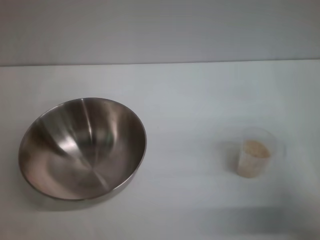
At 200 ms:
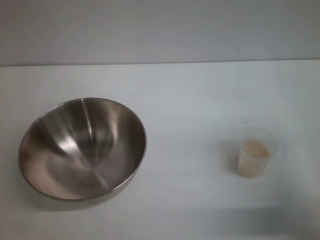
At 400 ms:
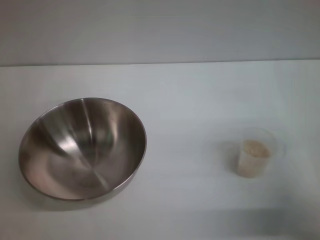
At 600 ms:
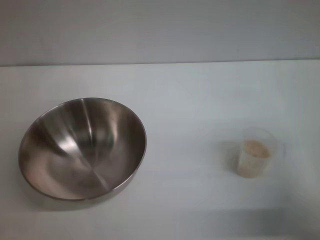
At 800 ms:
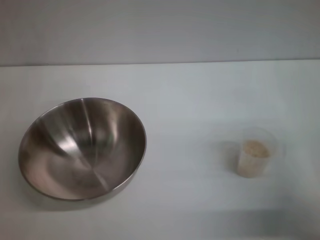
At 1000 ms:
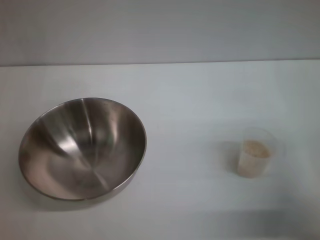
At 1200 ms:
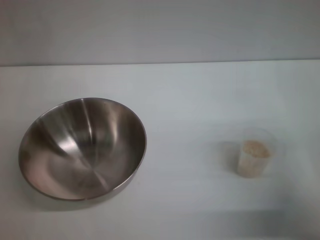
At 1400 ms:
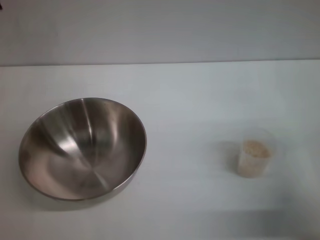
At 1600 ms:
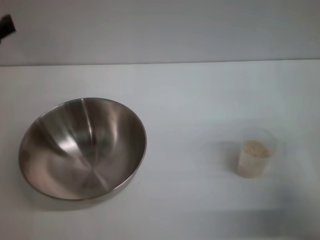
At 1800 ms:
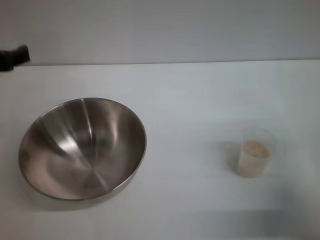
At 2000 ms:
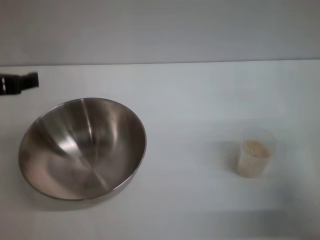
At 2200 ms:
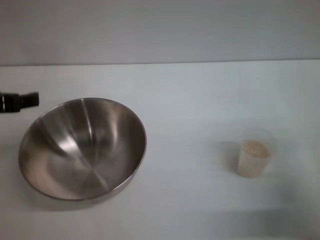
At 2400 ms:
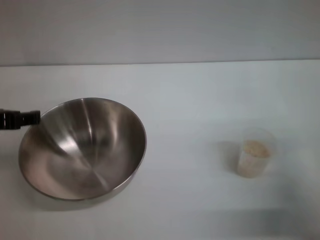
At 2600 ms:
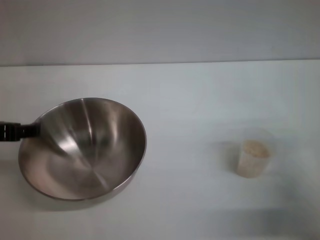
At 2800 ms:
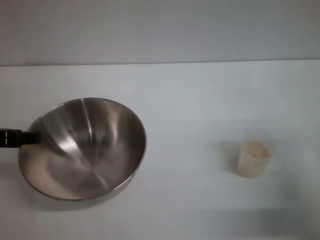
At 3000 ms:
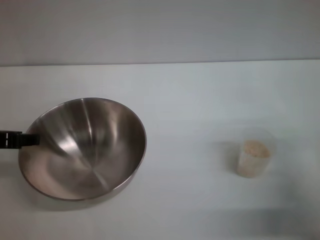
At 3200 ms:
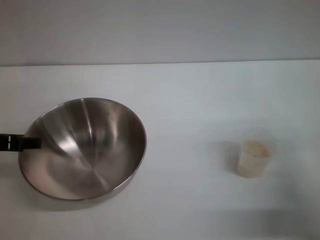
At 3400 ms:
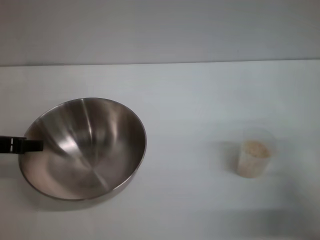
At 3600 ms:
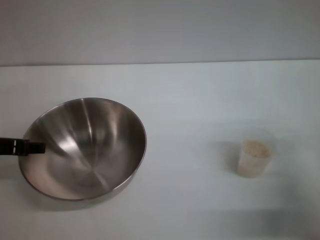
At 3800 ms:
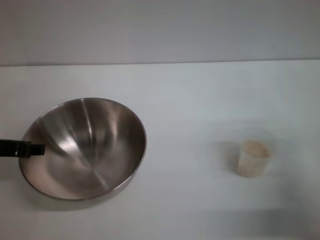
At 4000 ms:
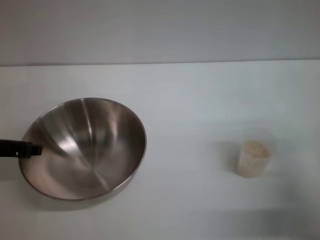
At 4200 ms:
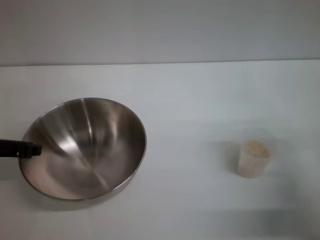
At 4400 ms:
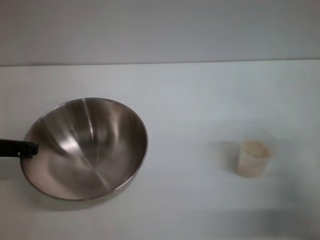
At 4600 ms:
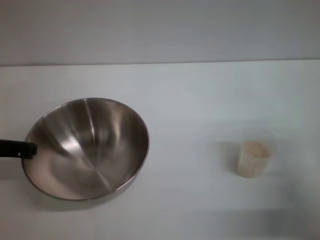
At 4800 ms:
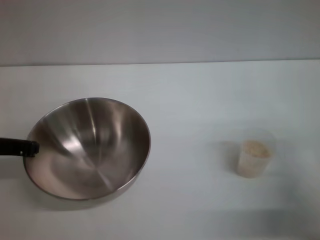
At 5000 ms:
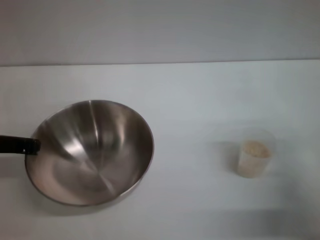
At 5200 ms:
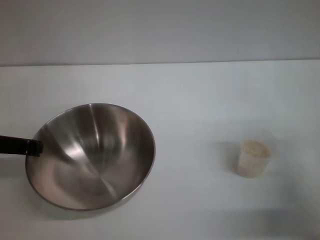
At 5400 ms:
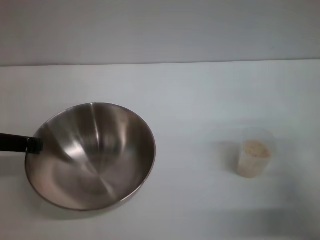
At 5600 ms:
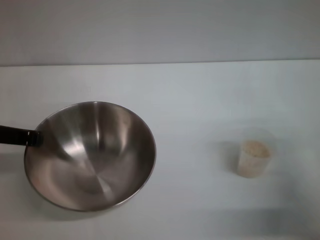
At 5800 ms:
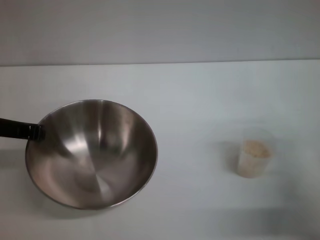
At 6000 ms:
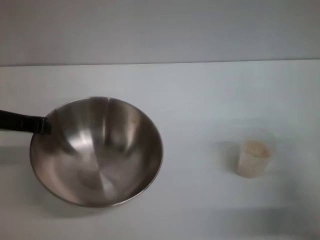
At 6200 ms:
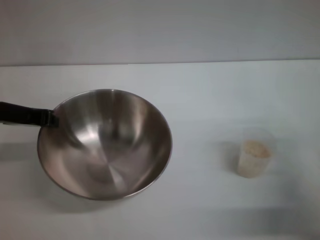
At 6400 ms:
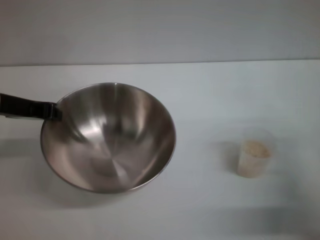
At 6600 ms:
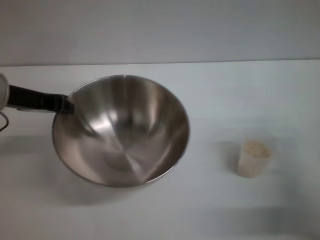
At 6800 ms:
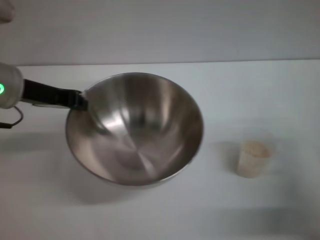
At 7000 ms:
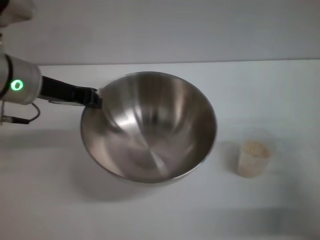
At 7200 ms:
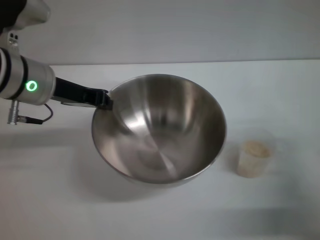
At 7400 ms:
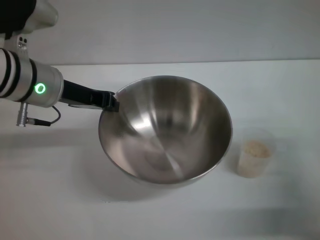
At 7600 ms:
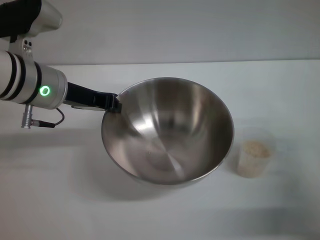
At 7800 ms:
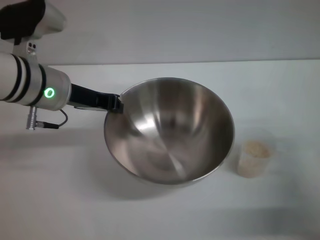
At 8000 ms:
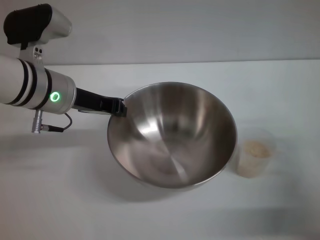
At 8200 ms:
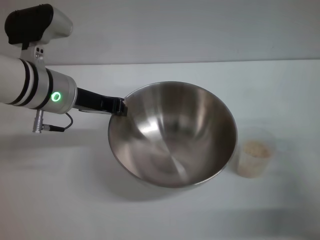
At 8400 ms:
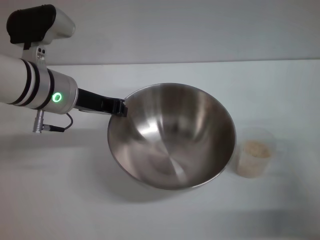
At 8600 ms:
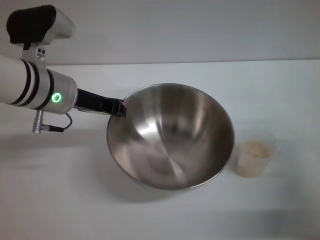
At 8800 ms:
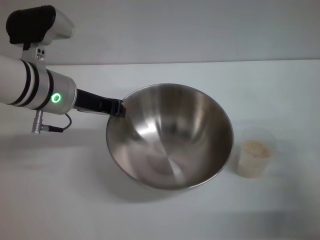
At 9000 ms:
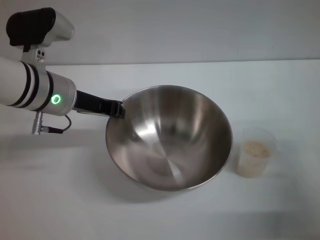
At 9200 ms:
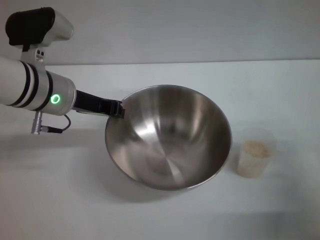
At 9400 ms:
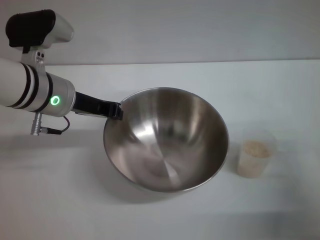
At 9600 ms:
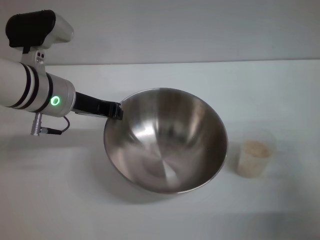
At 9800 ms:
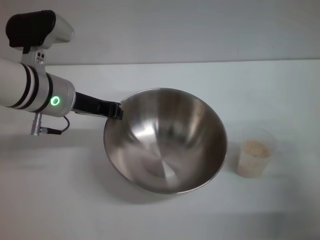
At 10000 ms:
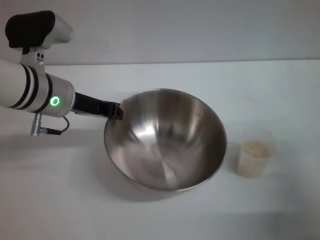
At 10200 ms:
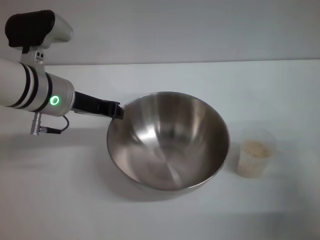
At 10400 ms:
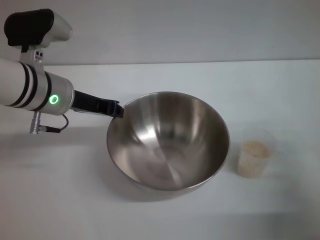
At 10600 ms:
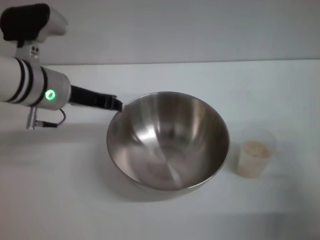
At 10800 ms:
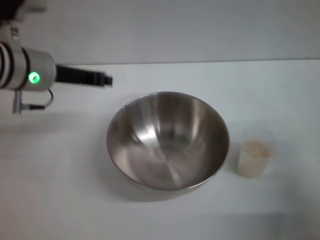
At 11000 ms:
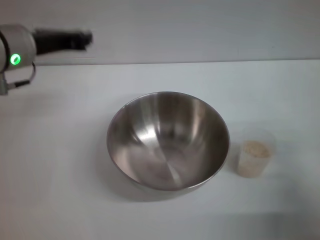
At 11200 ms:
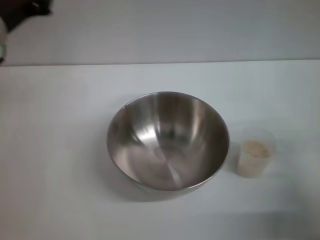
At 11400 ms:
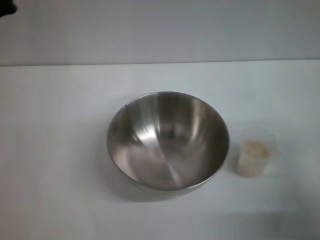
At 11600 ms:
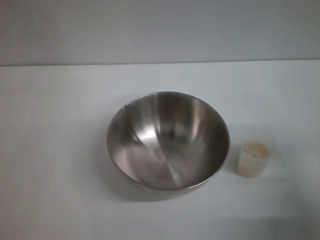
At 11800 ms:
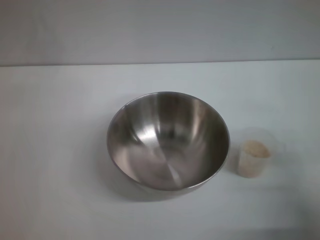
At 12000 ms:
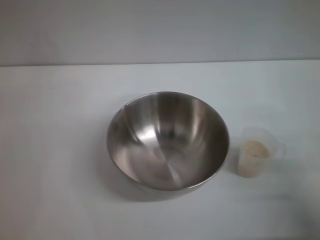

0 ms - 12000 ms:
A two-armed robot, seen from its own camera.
Task of the whole recording: Place the bowl in the middle of the table with one hand and pour the rice from the grain cup into it with the other hand.
Step, 0 ms - 7000 ms: Pick up the bowl with the left gripper.
Step, 7200 ms - 11000 ms: Place the bowl in the center of view with the left gripper.
1600 ms - 3000 ms: The left gripper changes place by about 5 cm.
3000 ms - 4400 ms: The left gripper closes its fingers.
4400 ms - 6000 ms: The left gripper closes.
6000 ms - 7600 ms: The left gripper is displaced to the right by approximately 10 cm.
7600 ms - 9000 ms: There are only small adjustments of the grippers.
9000 ms - 10400 ms: Both grippers stay put.
10400 ms - 12000 ms: The left gripper goes some 15 cm to the left, backward and downward.

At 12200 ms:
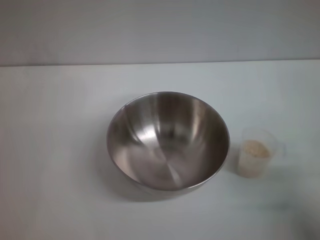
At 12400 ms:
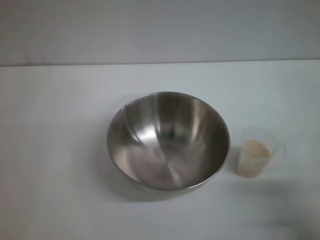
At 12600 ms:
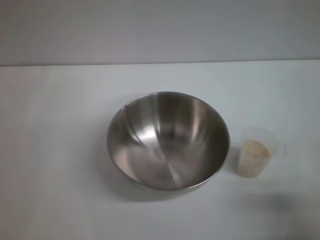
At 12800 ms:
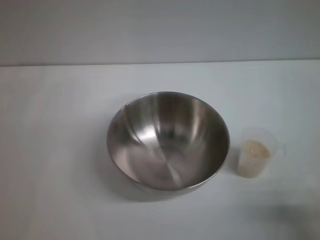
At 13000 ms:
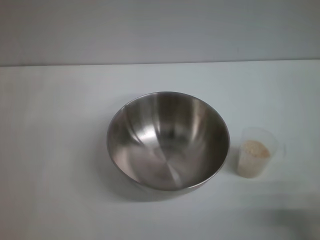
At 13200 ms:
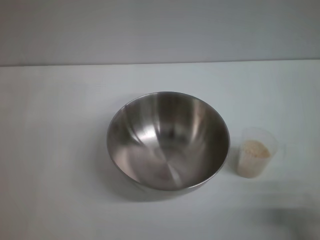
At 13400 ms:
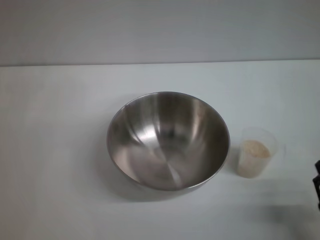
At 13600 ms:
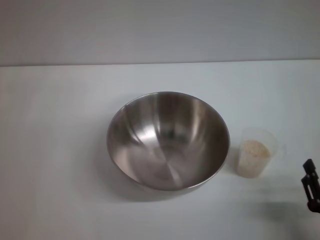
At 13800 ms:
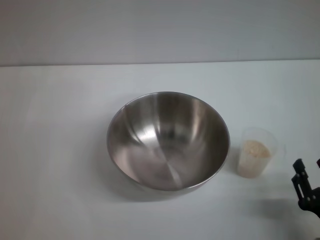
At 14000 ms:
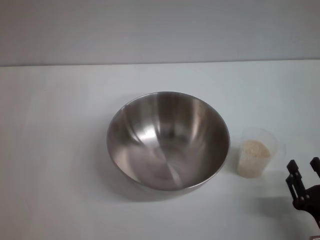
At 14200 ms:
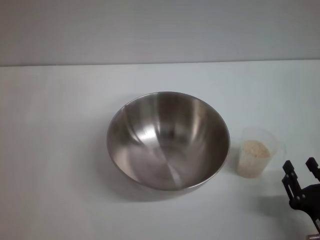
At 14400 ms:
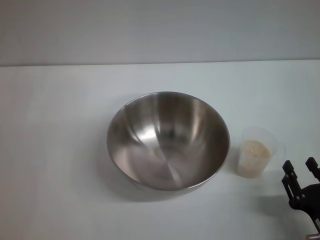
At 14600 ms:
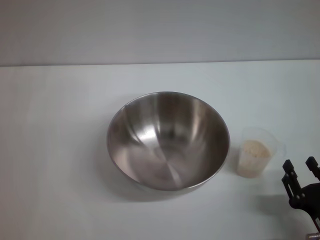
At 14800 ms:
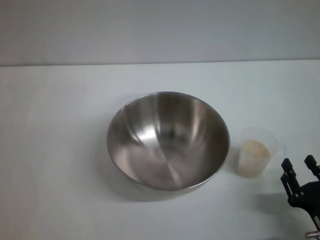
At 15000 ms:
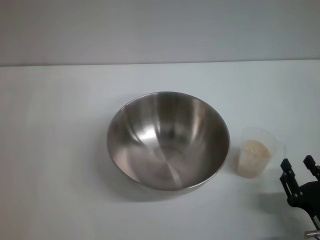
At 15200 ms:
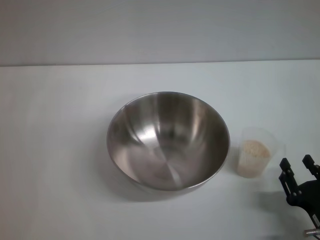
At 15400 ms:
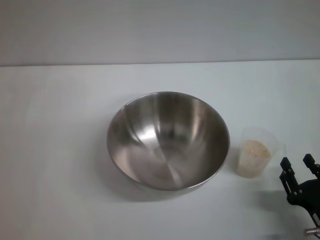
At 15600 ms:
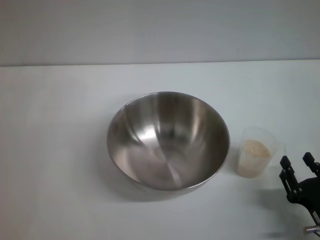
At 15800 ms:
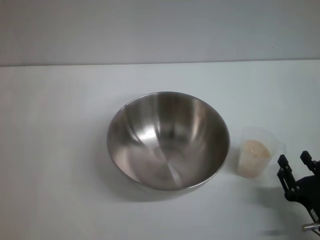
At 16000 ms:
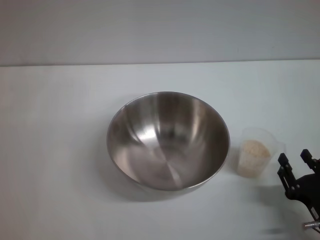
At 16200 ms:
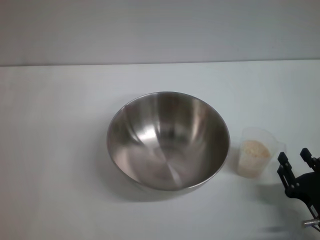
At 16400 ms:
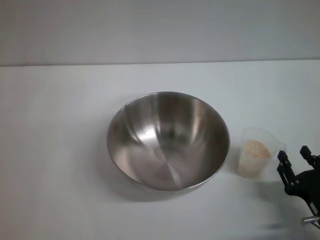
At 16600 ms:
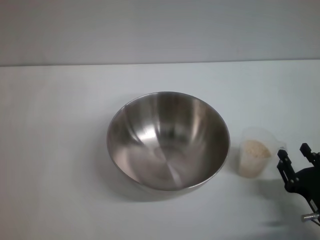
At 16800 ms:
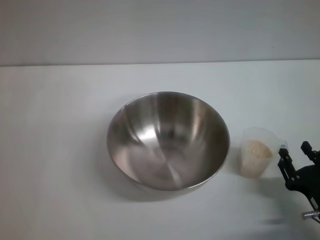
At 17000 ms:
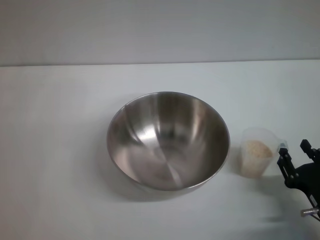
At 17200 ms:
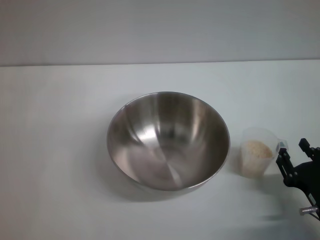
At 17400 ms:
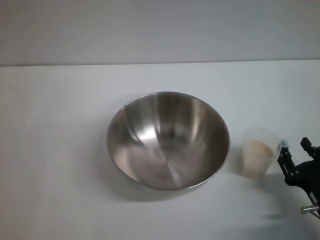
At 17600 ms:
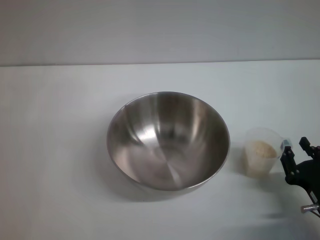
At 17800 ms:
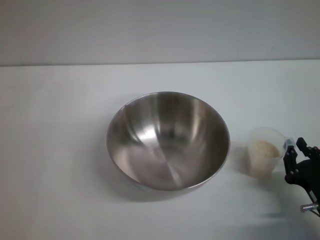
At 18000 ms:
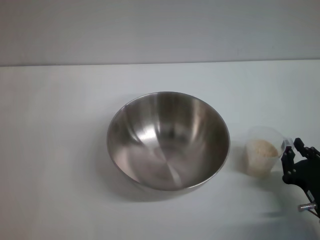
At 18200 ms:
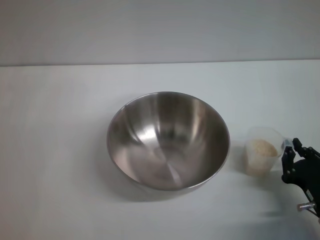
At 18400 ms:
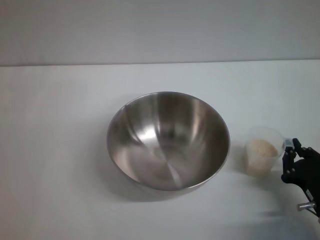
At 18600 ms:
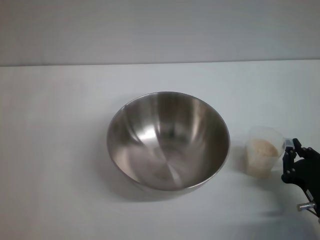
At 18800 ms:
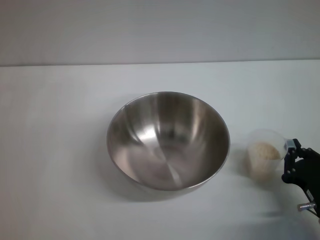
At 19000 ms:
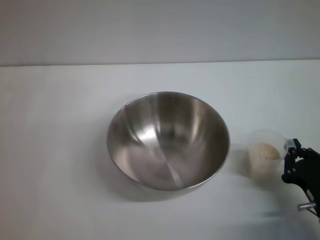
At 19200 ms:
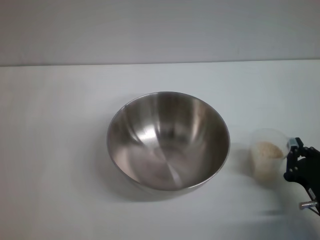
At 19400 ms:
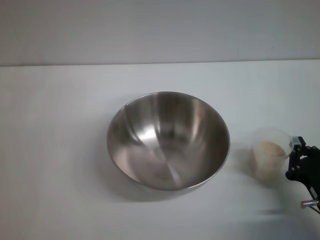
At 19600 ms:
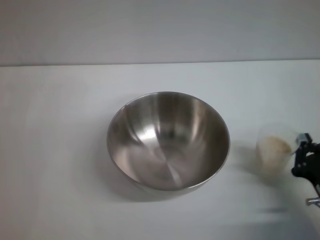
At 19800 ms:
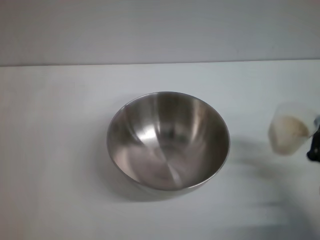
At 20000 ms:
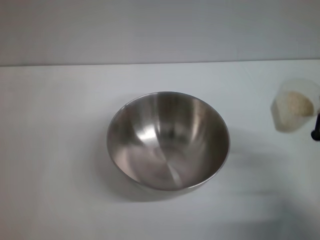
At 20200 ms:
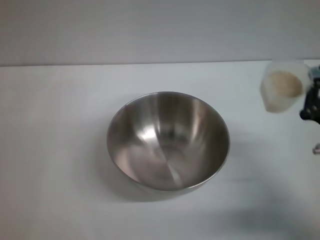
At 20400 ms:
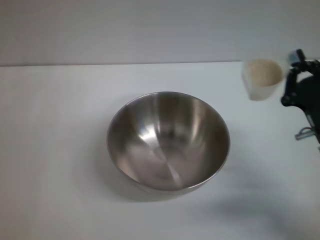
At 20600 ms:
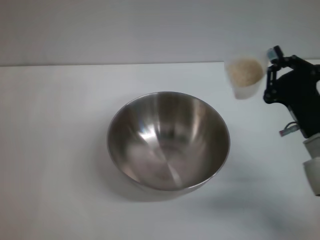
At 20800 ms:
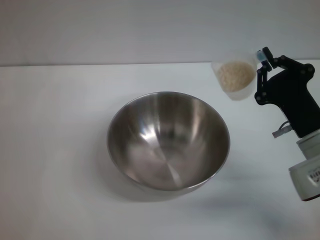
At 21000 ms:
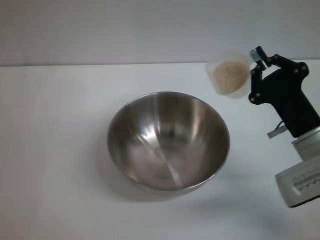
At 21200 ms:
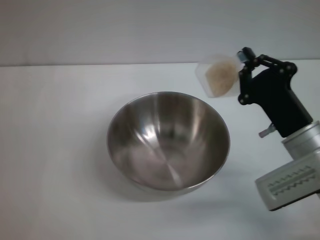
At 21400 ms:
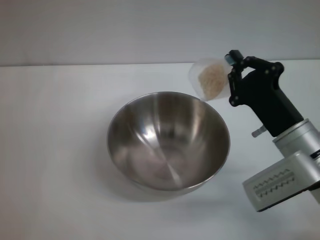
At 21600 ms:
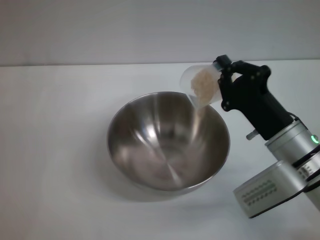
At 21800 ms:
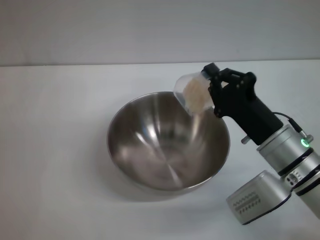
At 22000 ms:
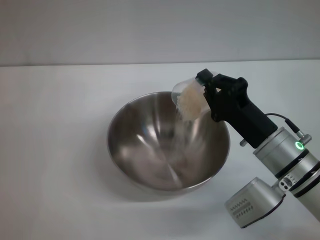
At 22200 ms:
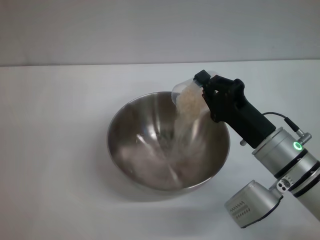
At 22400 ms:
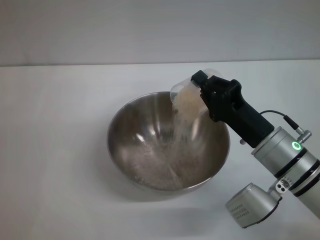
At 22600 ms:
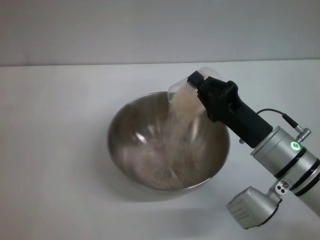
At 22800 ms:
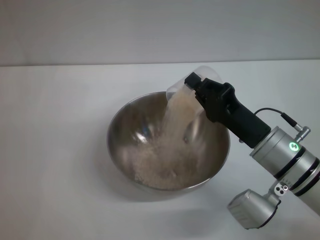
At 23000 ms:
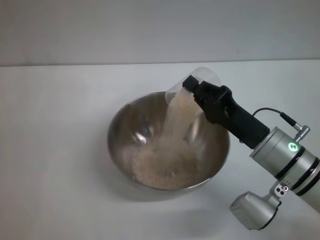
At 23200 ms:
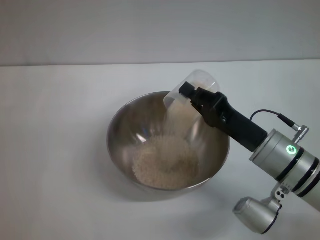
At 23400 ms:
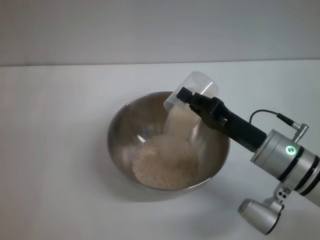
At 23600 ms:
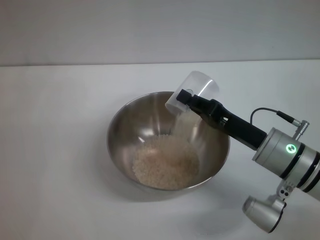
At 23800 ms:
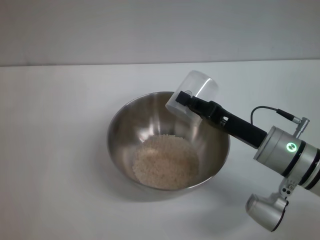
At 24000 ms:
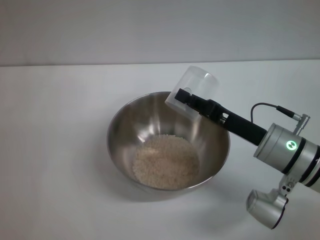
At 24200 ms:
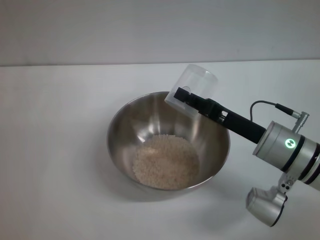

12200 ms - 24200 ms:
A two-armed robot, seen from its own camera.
Task of the whole recording: Place the bowl in the middle of the table with one hand and pour the rice from the grain cup into it with the other hand.
Step, 12200 ms - 20200 ms: Pick up the cup with rice in it with the right gripper.
12200 ms - 13800 ms: The right gripper heads downward, covering some 5 cm.
13800 ms - 16600 ms: The grippers make only small movements.
16600 ms - 18200 ms: The right gripper closes.
18200 ms - 19800 ms: The right gripper closes.
19800 ms - 21200 ms: The right gripper is displaced forward, to the left and upward by approximately 10 cm.
